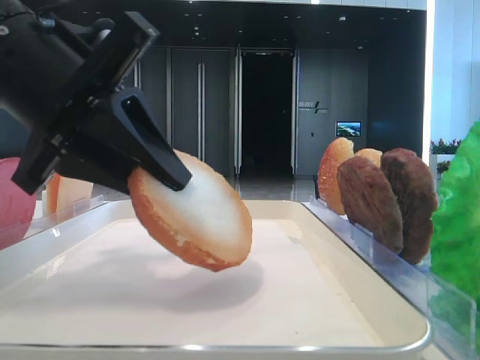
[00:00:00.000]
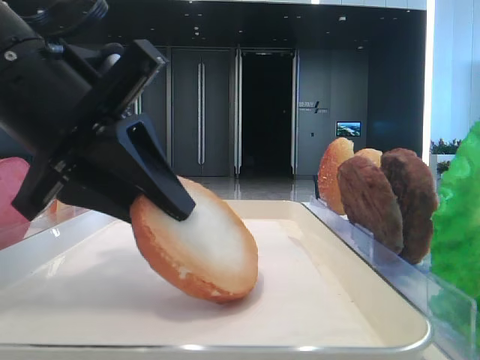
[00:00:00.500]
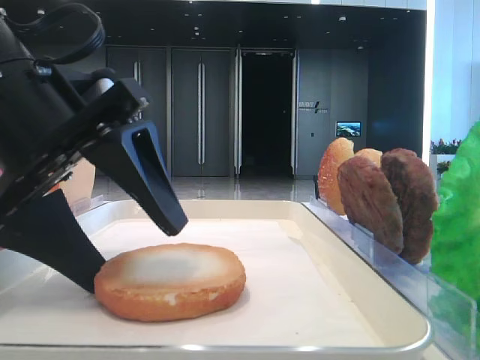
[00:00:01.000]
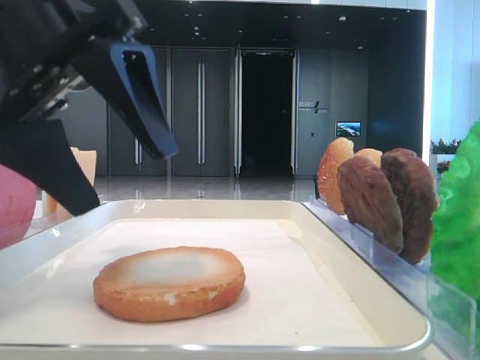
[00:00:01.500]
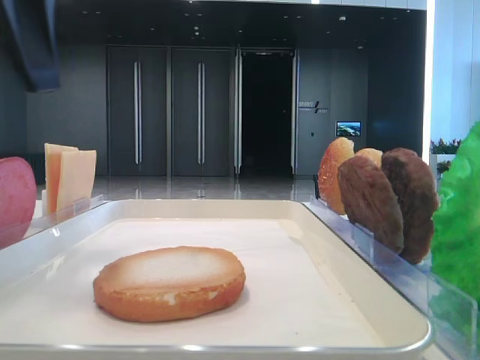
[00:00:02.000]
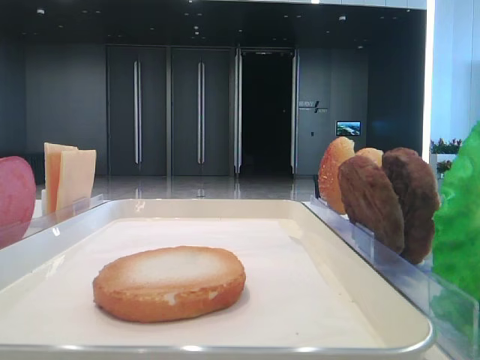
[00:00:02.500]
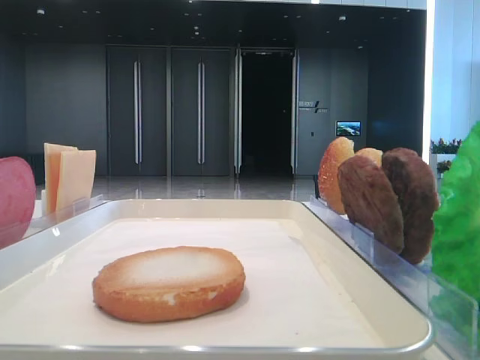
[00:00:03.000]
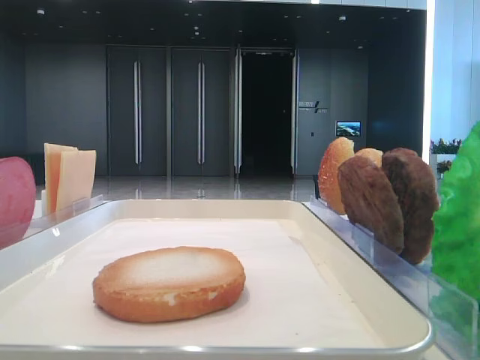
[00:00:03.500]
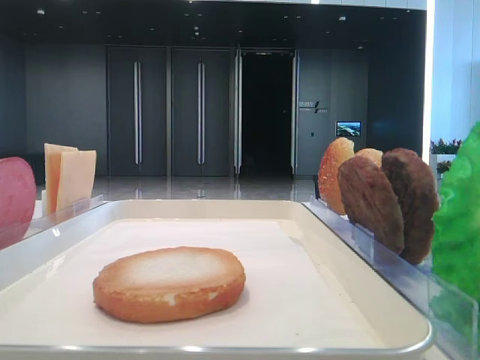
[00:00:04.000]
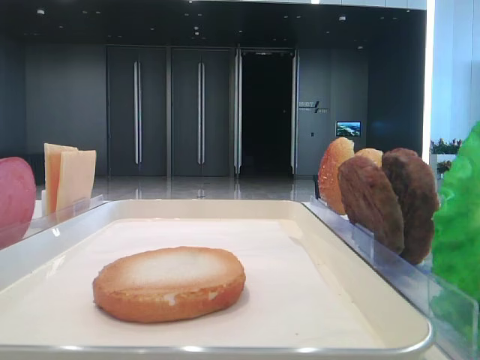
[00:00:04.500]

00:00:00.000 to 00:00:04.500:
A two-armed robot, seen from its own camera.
00:00:00.000 to 00:00:02.000: The left gripper goes about 10 cm upward and to the left, and opens.
00:00:02.000 to 00:00:04.500: The left gripper moves backward and to the left, roughly 30 cm.

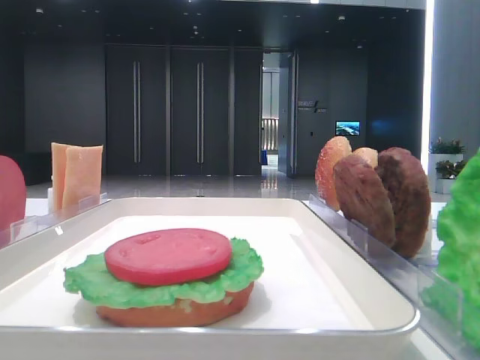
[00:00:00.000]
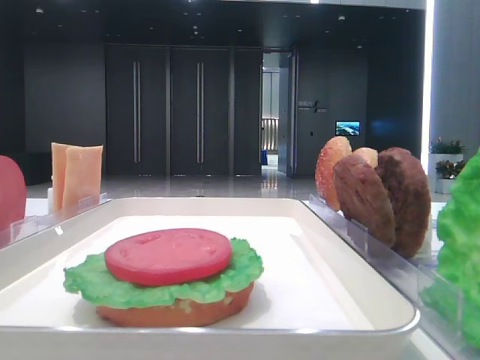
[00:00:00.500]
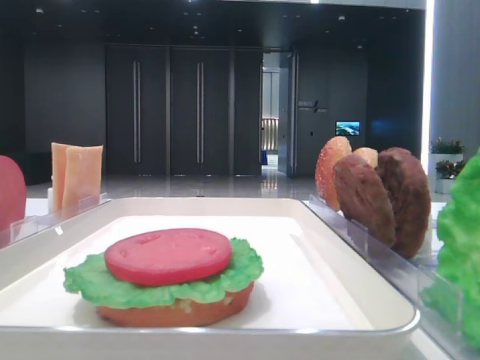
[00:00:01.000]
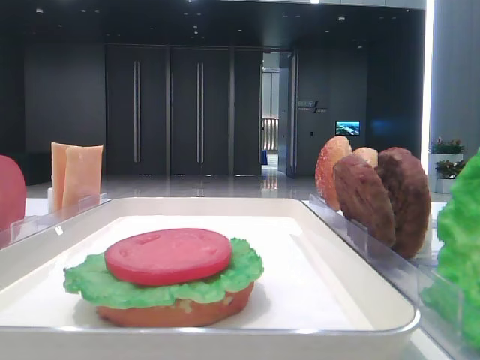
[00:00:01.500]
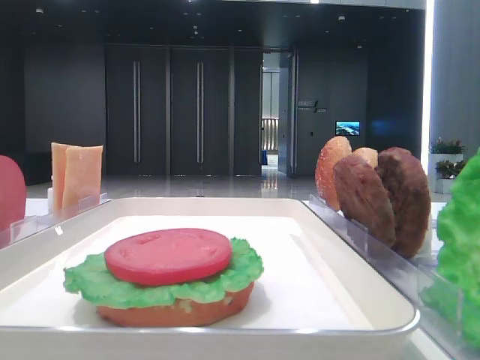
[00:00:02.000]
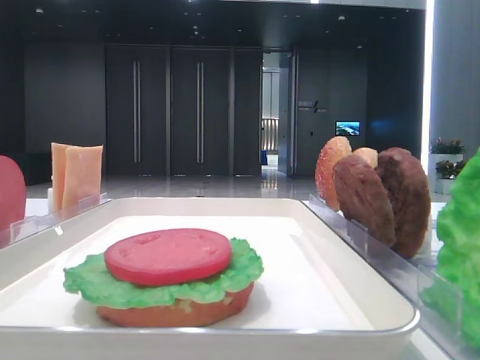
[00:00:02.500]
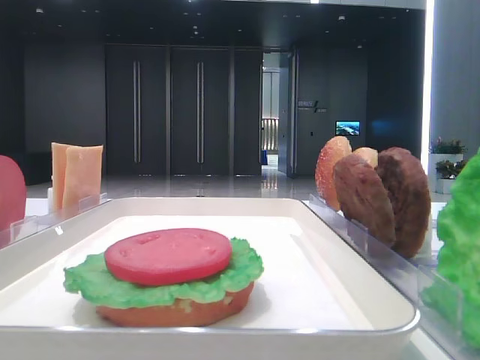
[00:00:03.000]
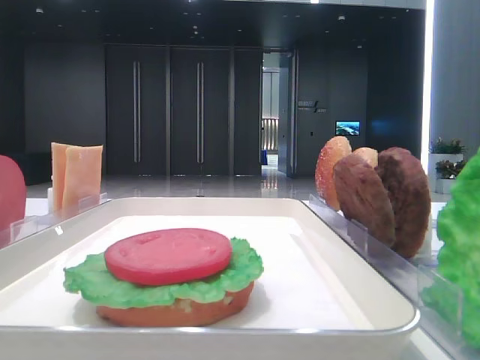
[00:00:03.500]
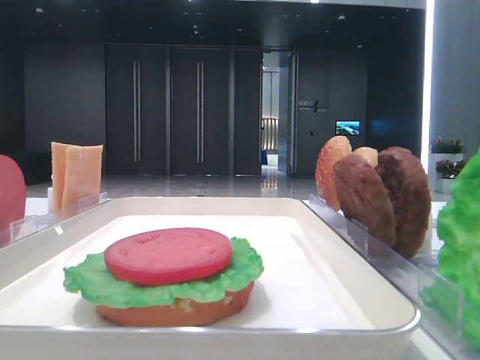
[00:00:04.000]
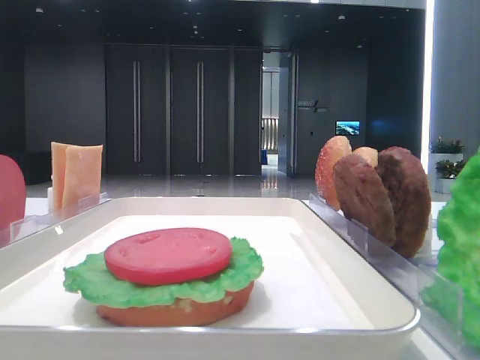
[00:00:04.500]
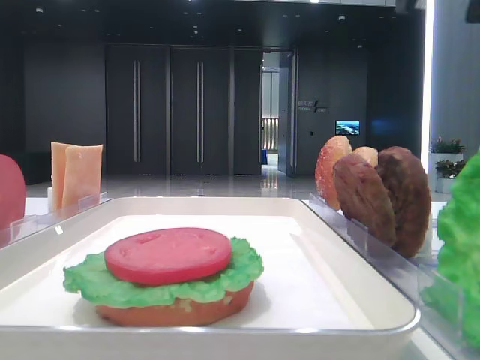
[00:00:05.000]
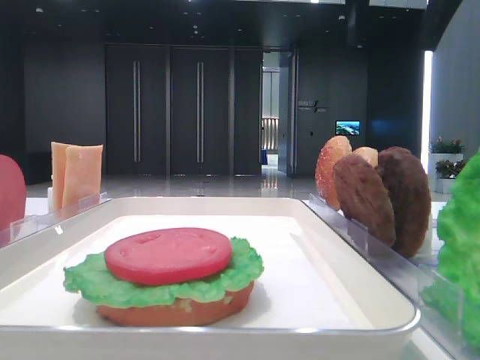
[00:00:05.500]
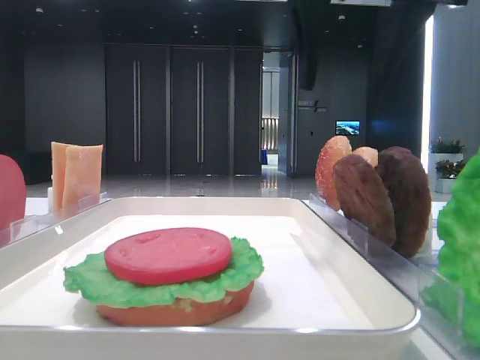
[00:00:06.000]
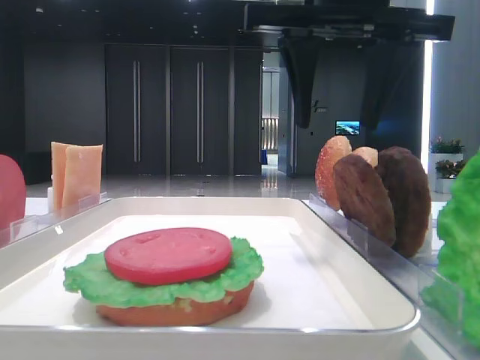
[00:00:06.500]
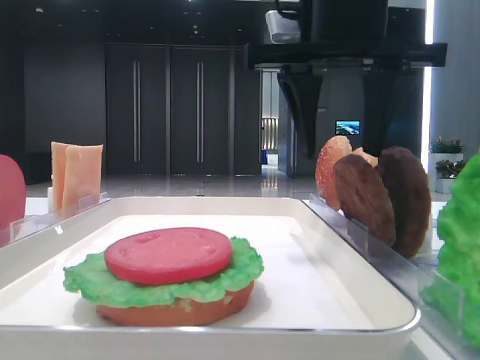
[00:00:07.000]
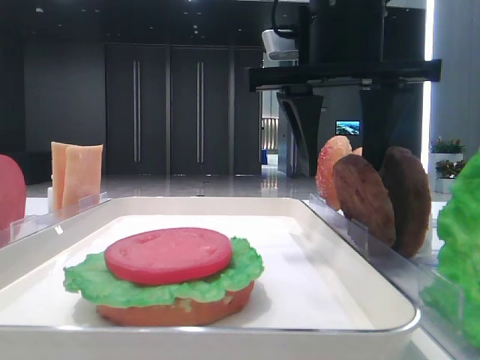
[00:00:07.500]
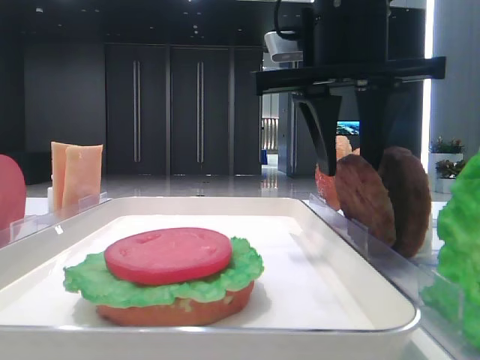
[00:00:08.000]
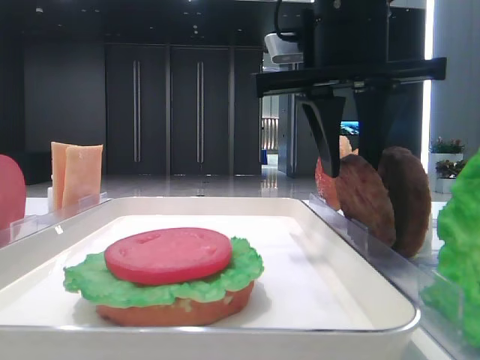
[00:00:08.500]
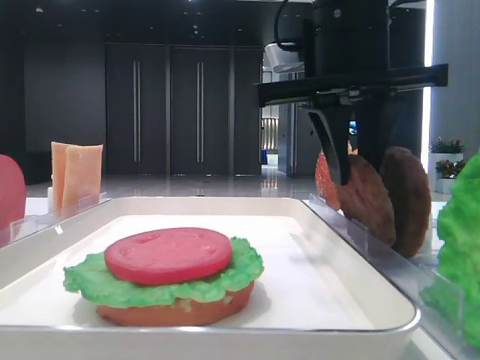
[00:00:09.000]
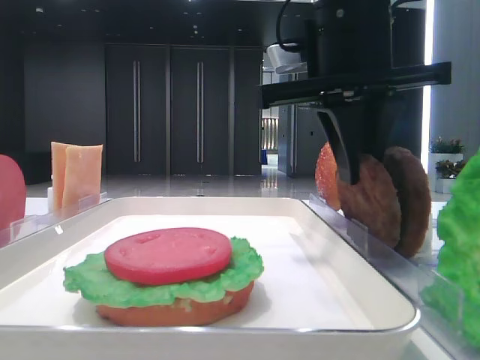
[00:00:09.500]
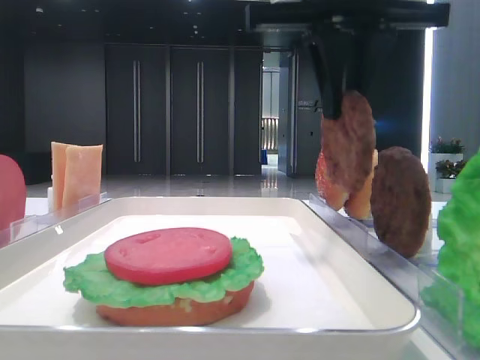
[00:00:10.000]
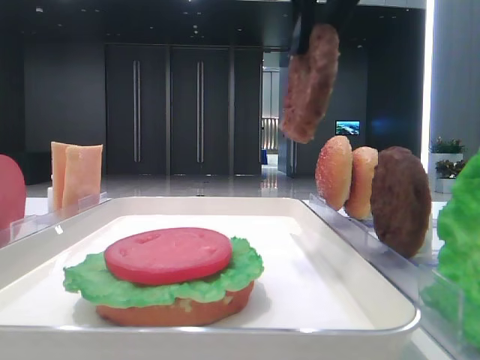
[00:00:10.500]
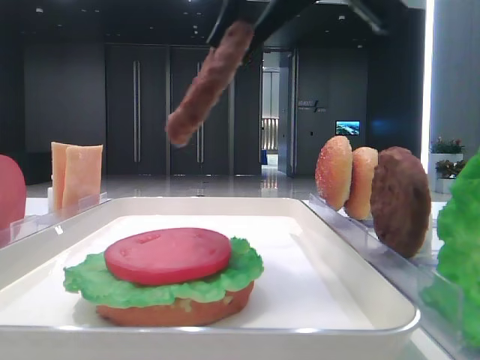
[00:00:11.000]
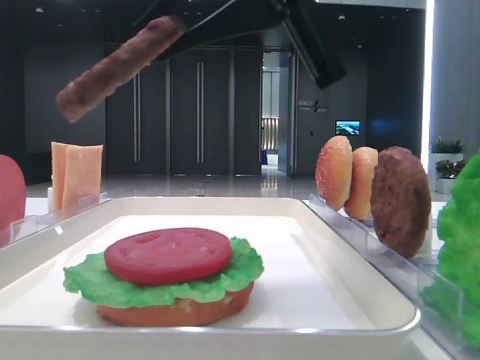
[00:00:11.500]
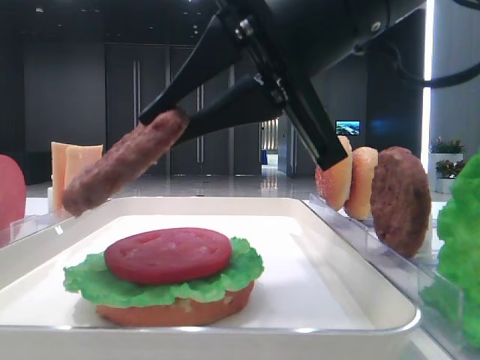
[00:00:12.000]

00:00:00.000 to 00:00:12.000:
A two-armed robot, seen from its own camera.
Step, 00:00:00.000 to 00:00:09.000: Grab the patty with the right hand.
00:00:04.000 to 00:00:06.000: The right gripper heads to the left and downward, covering approximately 20 cm.
00:00:06.000 to 00:00:08.000: The right gripper moves downward, about 5 cm.
00:00:08.000 to 00:00:10.000: The right gripper closes up.
00:00:10.000 to 00:00:12.000: The right gripper shifts about 10 cm backward and downward.

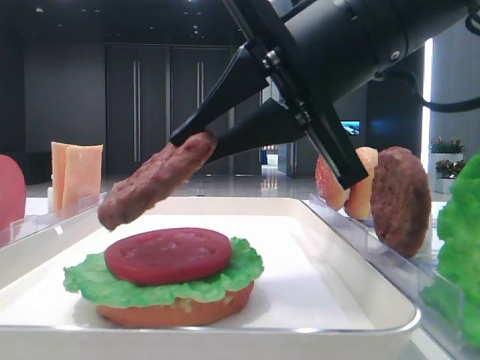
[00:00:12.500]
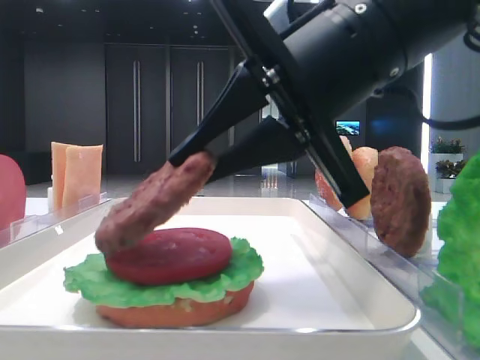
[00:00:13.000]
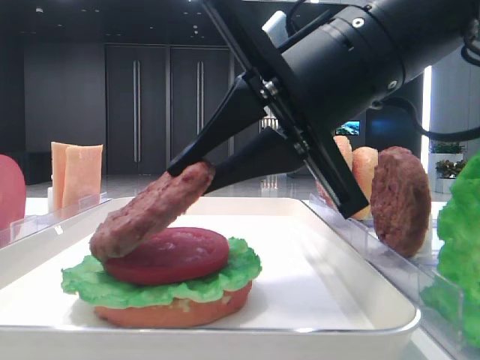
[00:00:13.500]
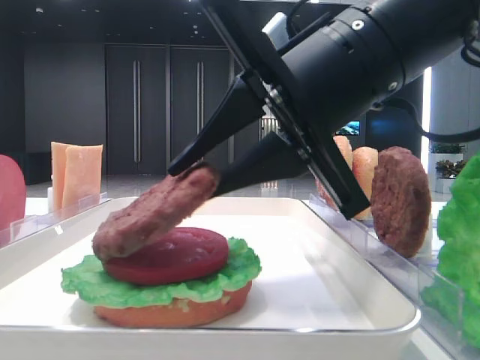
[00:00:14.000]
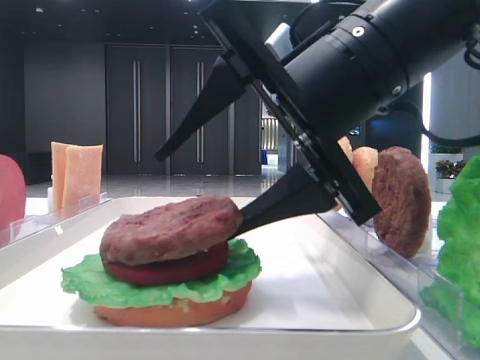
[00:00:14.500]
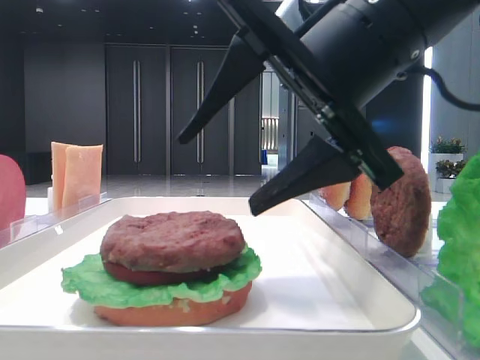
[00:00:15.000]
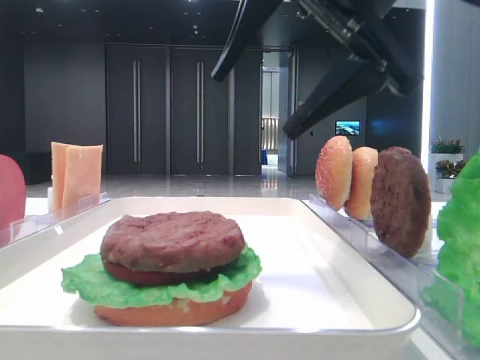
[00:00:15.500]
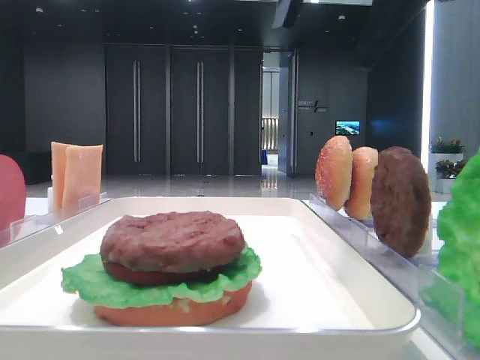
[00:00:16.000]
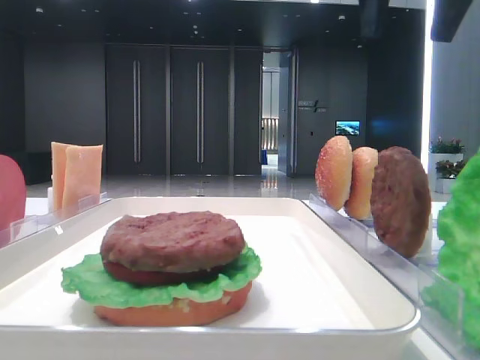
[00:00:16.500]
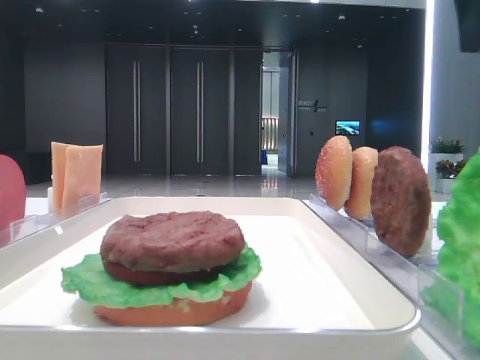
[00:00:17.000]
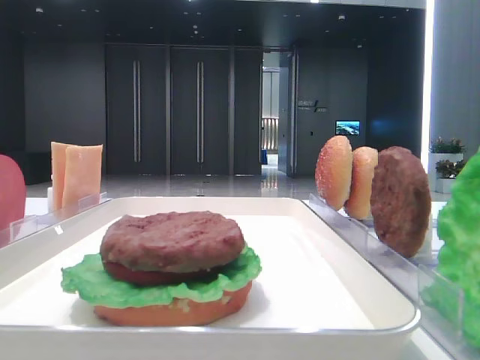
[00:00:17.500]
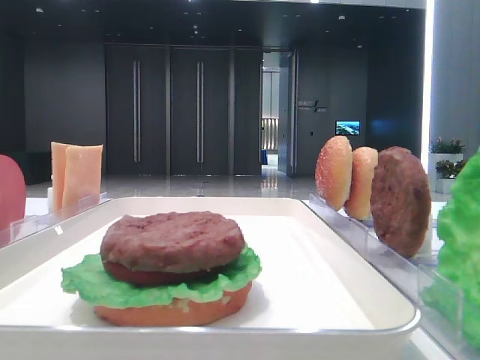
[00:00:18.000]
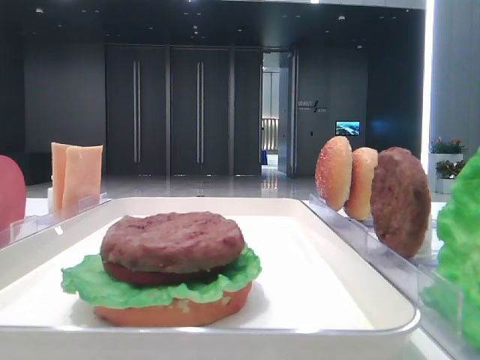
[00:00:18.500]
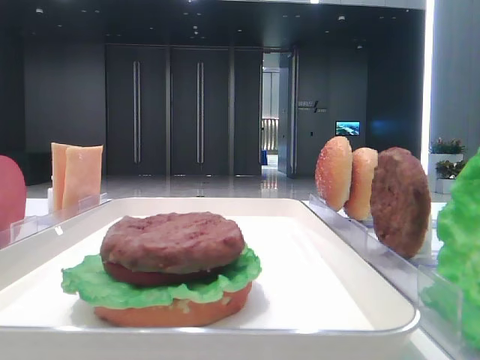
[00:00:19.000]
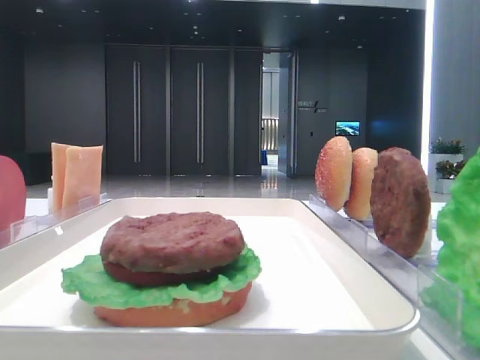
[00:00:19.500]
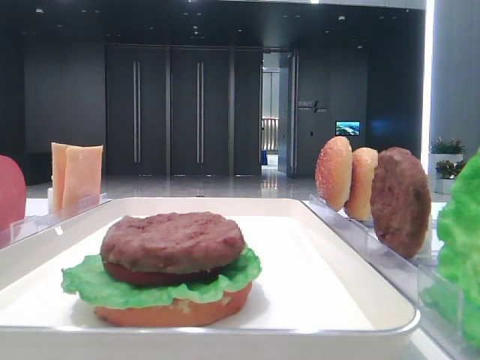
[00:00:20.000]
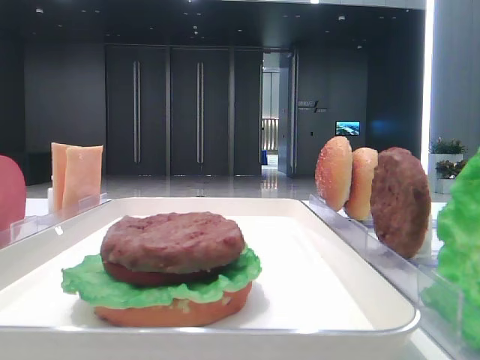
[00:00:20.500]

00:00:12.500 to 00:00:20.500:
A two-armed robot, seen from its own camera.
Step, 00:00:12.500 to 00:00:14.500: Place the patty on the tomato slice with the right hand.
00:00:12.500 to 00:00:14.500: The right gripper opens up.
00:00:14.500 to 00:00:16.500: The right gripper heads upward, covering roughly 15 cm.
00:00:16.500 to 00:00:18.500: The right gripper heads backward and to the right, covering approximately 25 cm.
